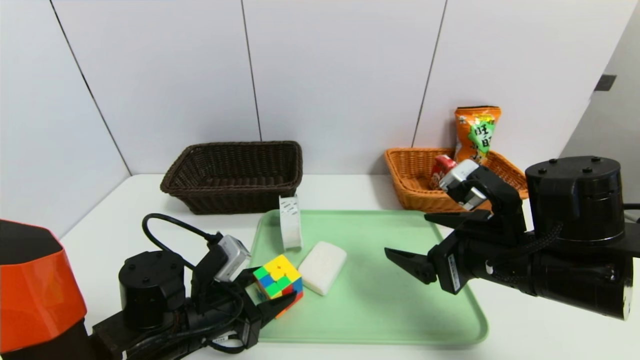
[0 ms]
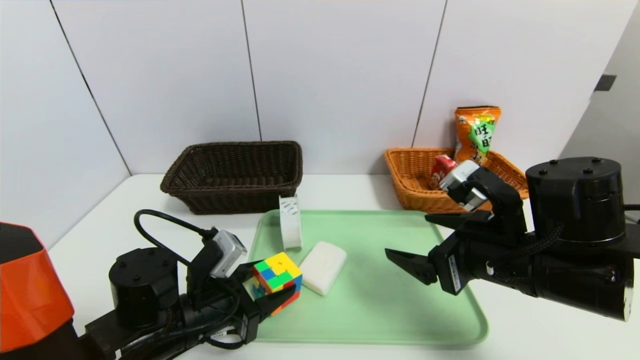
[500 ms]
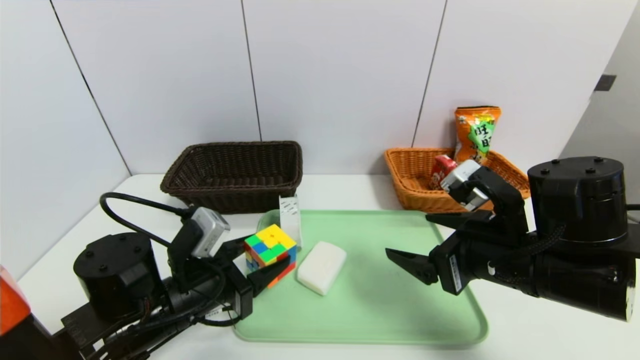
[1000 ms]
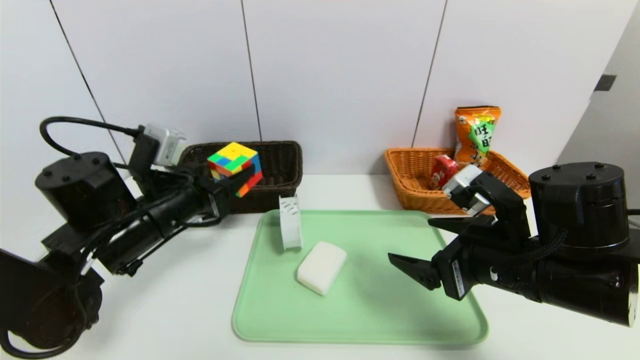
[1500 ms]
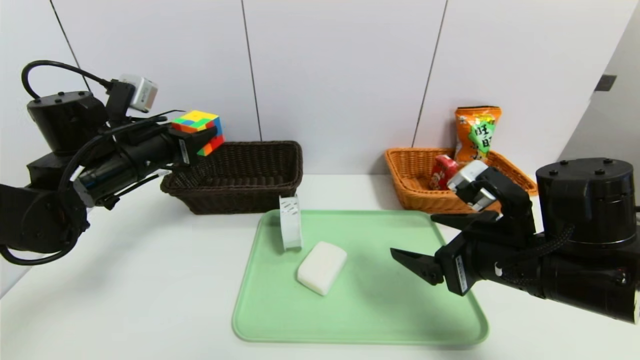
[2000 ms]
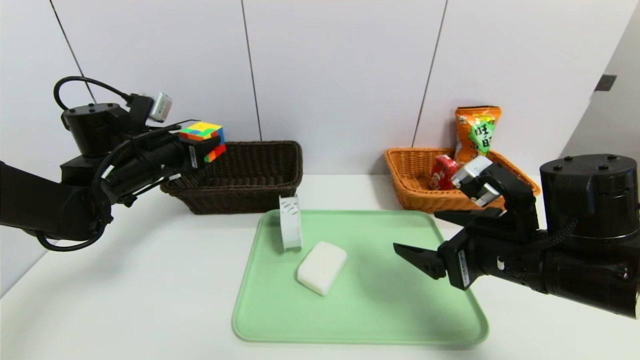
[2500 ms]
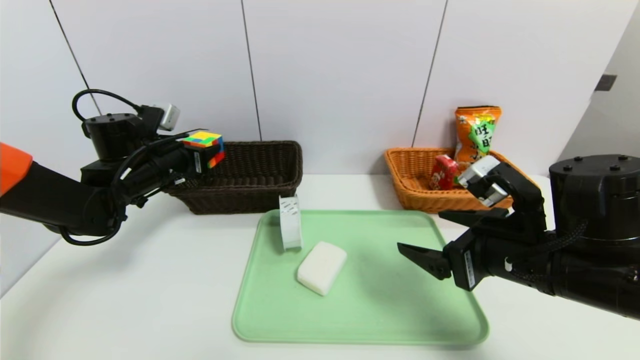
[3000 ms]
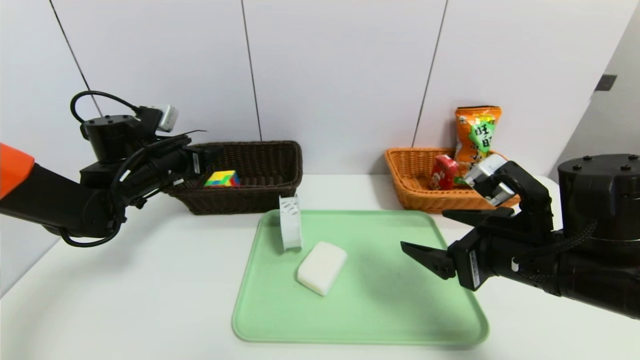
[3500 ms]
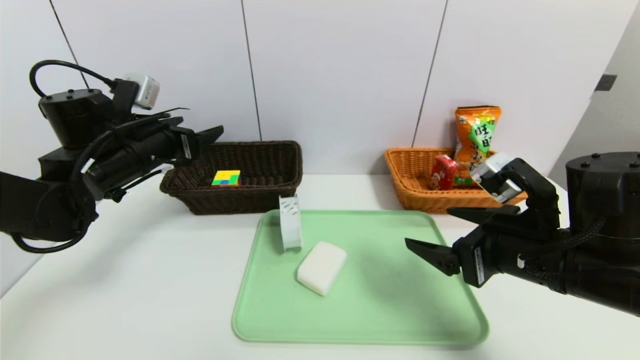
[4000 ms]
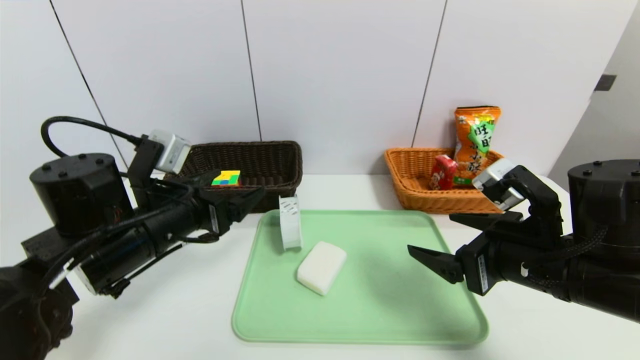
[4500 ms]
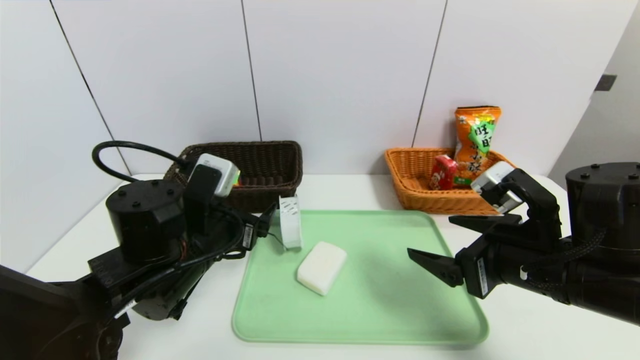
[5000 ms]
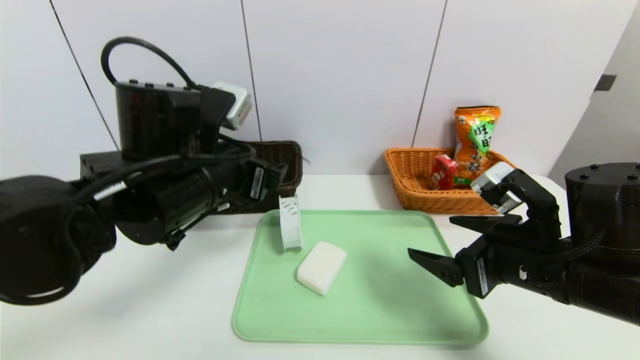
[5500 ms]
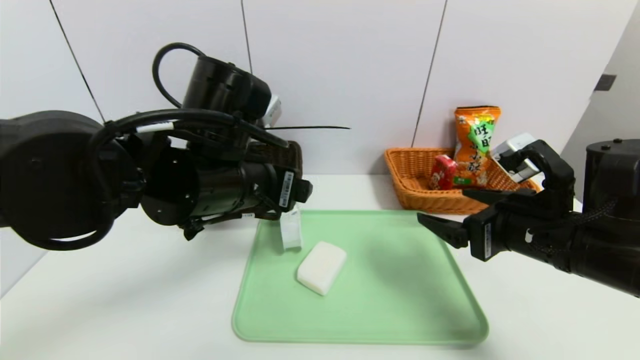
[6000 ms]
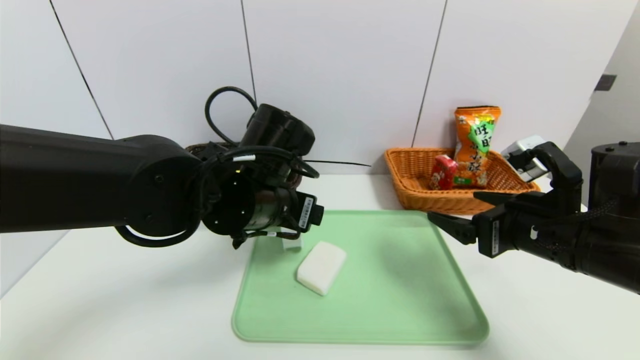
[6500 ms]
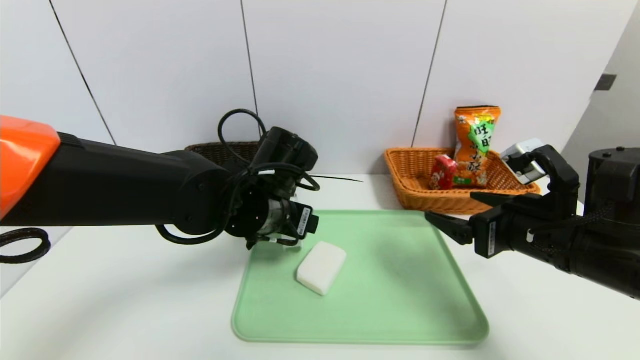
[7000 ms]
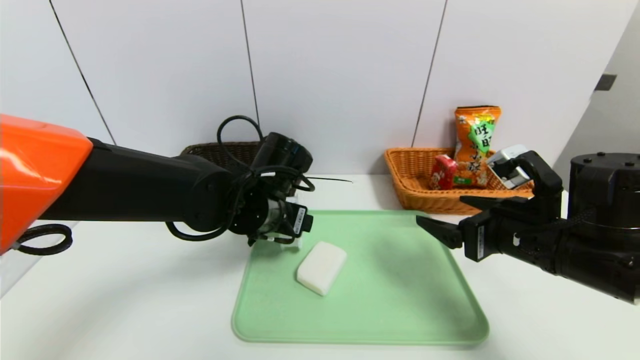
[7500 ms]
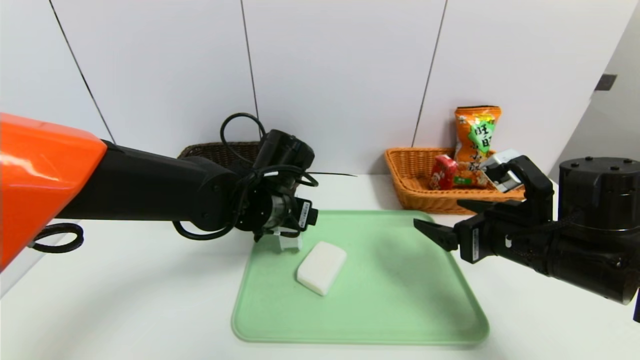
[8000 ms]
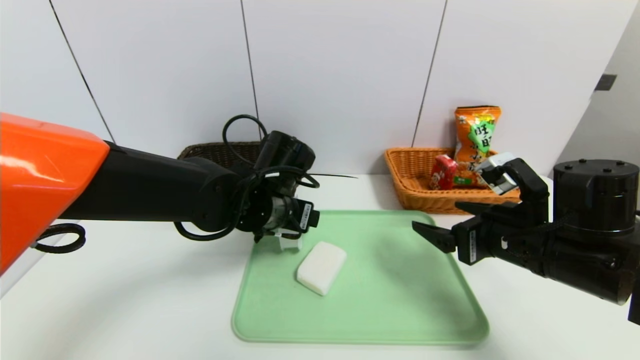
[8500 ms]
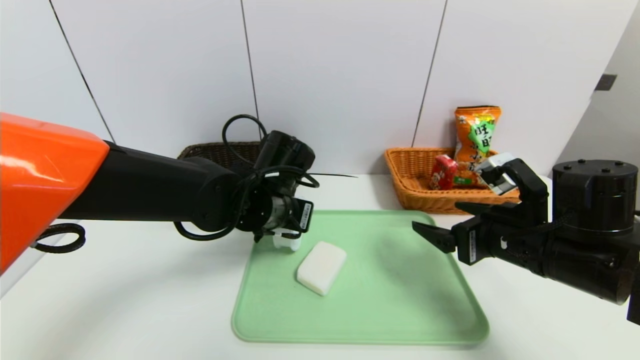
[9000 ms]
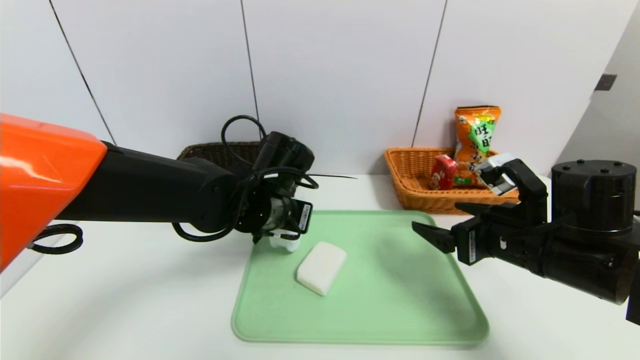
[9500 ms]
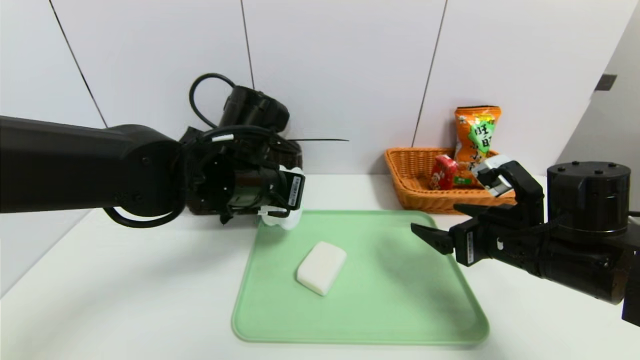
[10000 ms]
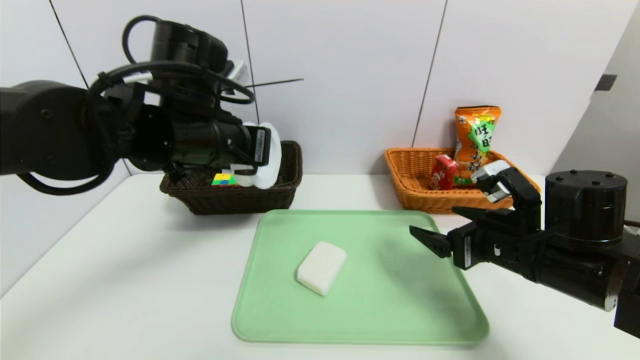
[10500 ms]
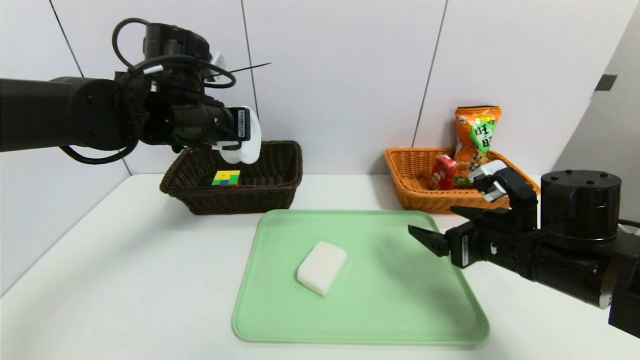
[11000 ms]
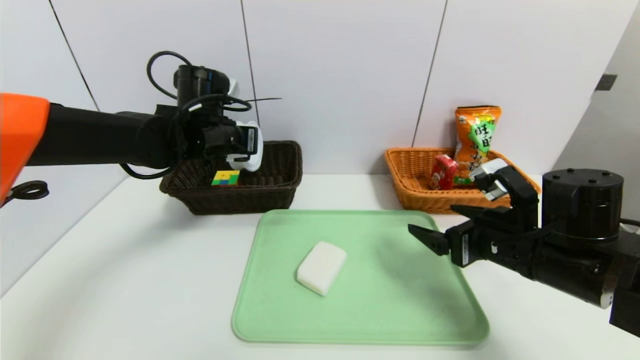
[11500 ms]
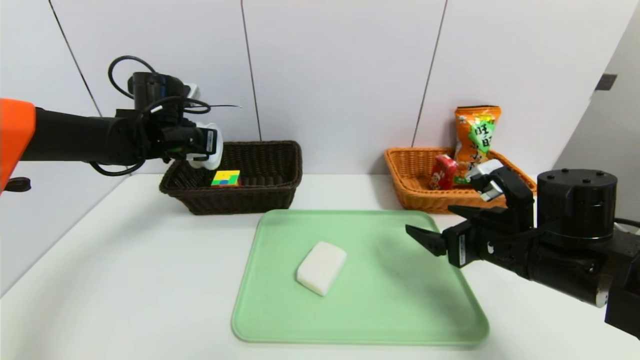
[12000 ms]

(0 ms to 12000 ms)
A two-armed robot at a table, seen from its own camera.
Task of the whole recording: place the food in the right basket with the right gripper, and place the non food items in the left basket with the left gripper.
Step, 0 ms - 3500 ms: Grasp the rubiks cube and put it in the left basket.
0 ms - 2000 ms: The left gripper travels upward, forward and to the left by roughly 20 cm.
2000 ms - 4000 ms: The left gripper opens up.
4000 ms - 6000 ms: The left gripper heads to the right and backward, covering about 20 cm.
6000 ms - 8000 ms: The left gripper moves downward and forward, about 10 cm.
8000 ms - 10000 ms: The left gripper shifts some 5 cm upward, and closes up.
10000 ms - 12000 ms: The left gripper shifts approximately 20 cm to the left and forward.

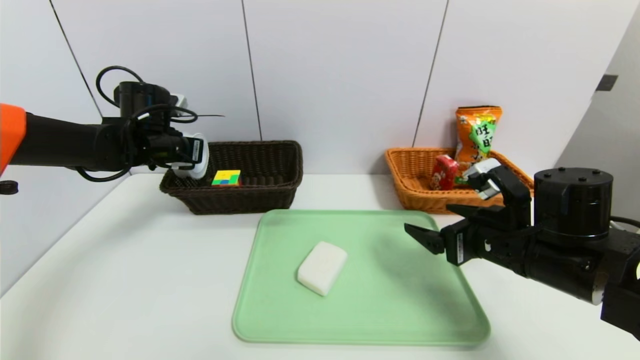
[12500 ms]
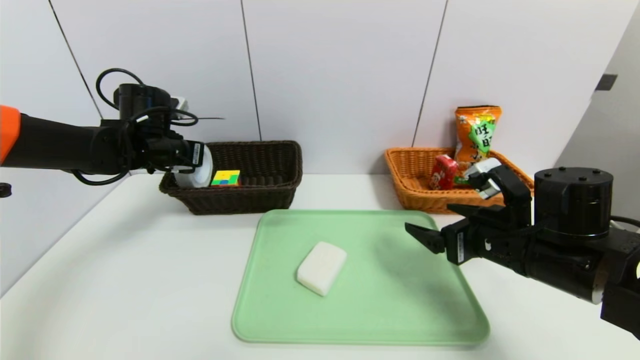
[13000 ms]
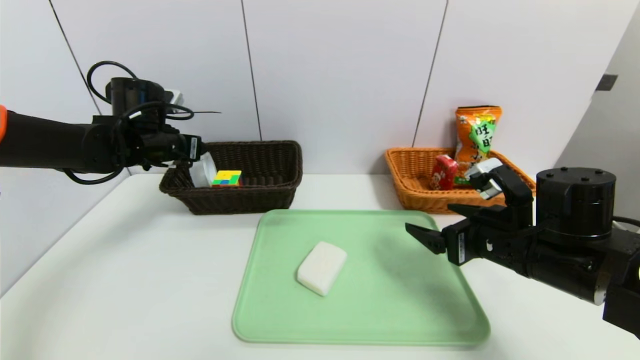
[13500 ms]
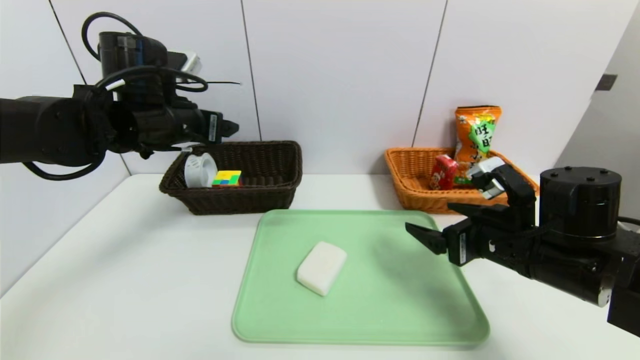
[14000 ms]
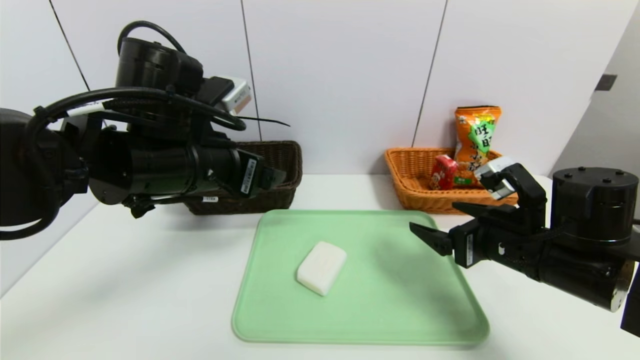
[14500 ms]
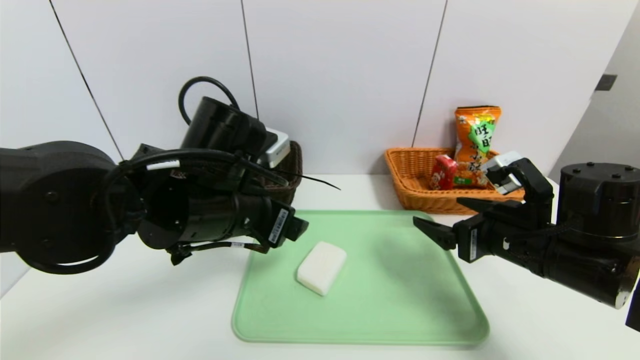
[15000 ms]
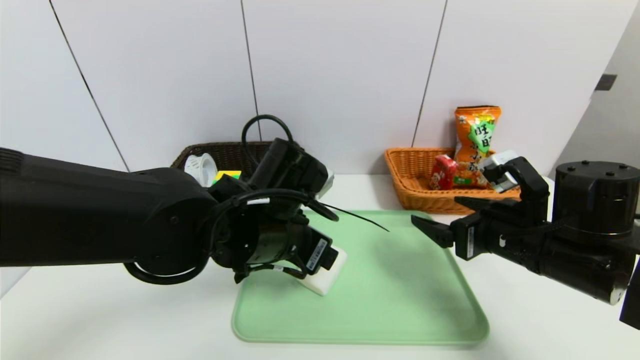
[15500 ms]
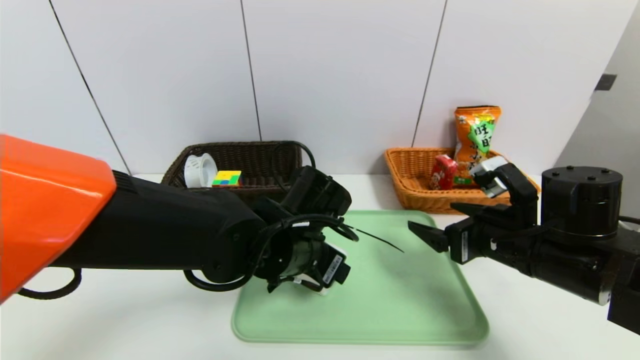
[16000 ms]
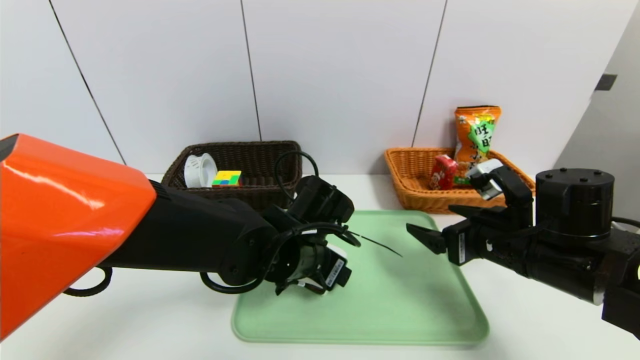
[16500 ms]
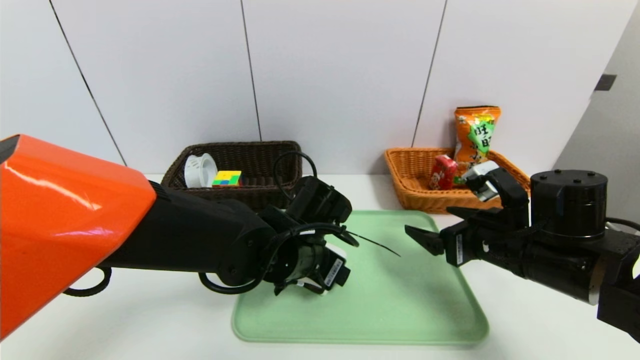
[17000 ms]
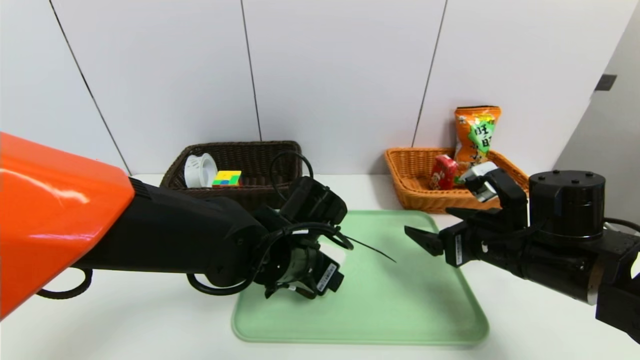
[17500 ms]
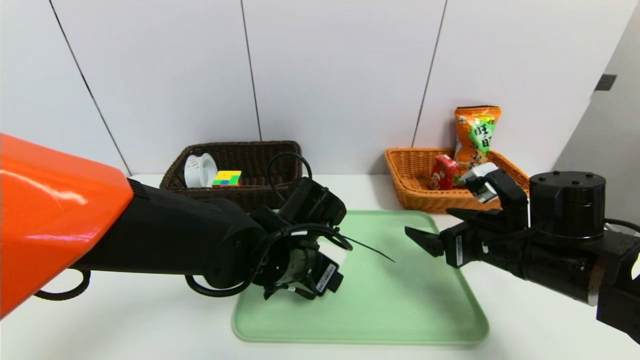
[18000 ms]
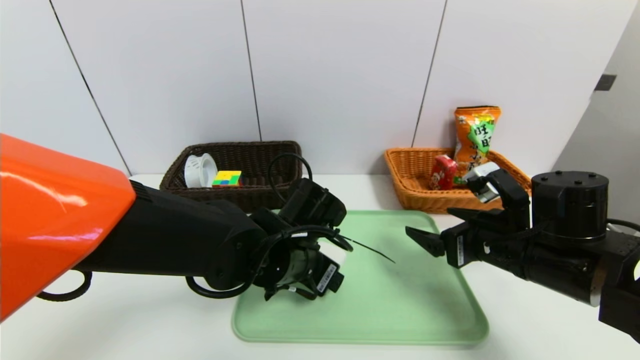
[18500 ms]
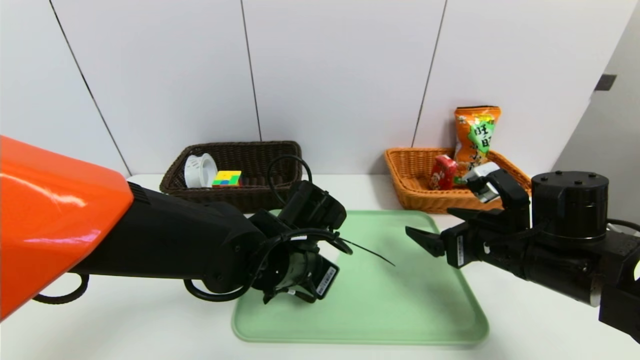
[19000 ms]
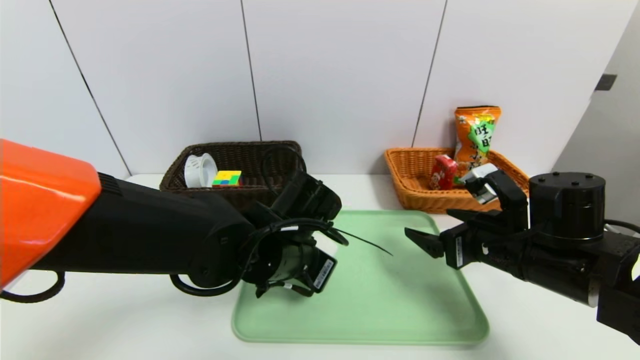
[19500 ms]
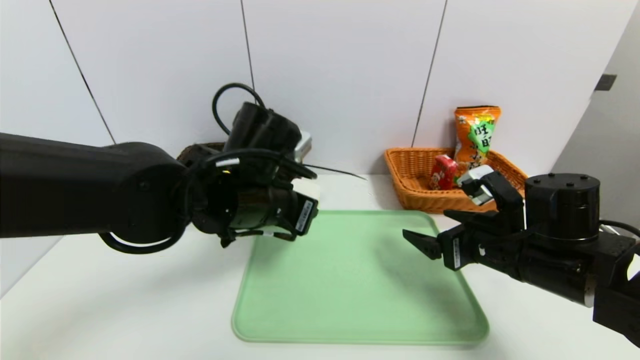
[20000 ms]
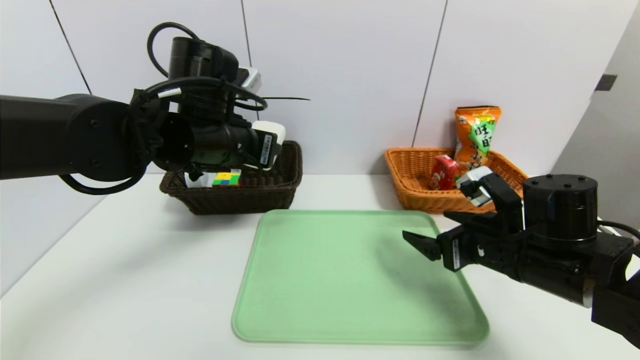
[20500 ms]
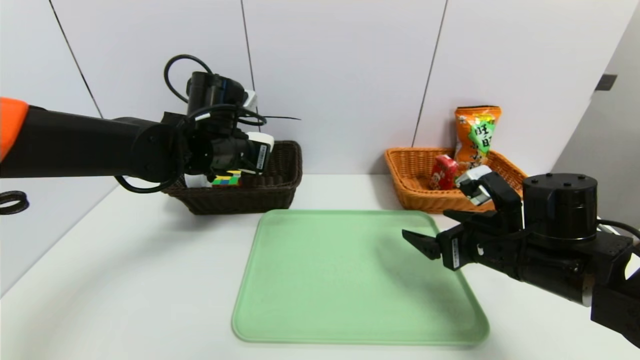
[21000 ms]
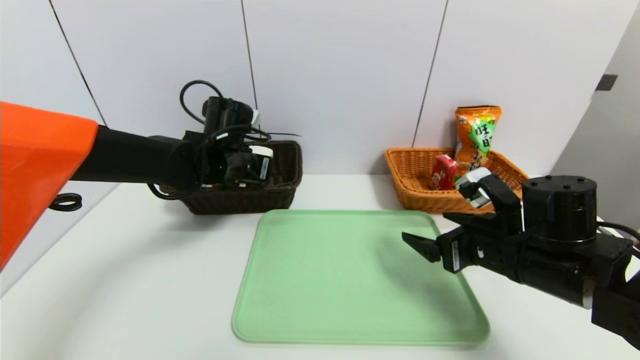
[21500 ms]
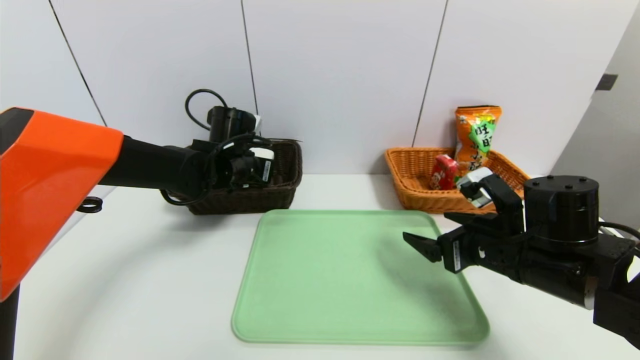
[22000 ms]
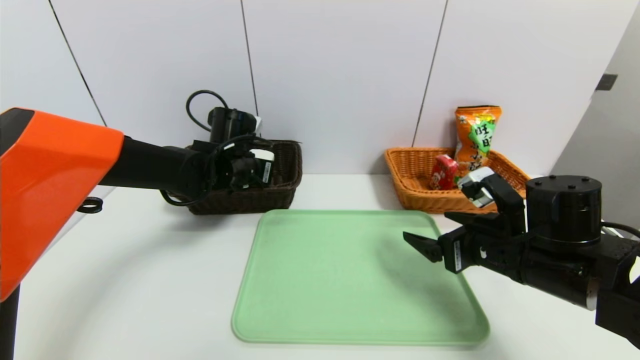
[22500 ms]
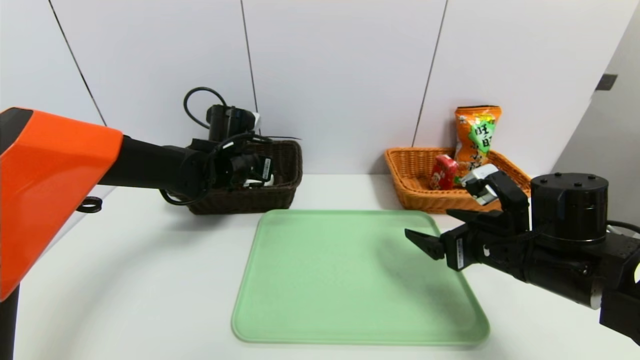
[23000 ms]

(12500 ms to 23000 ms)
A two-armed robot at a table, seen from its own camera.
Task of the whole recording: place the food in the right basket with the right gripper, and place the non food items in the left basket with the left gripper.
12500 ms - 14500 ms: The left gripper goes approximately 20 cm backward and to the right, and opens up.
14500 ms - 16500 ms: The left gripper goes some 20 cm downward and to the right.
16500 ms - 19000 ms: The left gripper closes up.
19000 ms - 21000 ms: The left gripper moves forward, to the left and upward, roughly 20 cm.
21000 ms - 23000 ms: The left gripper moves approximately 5 cm.
